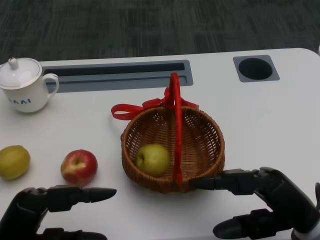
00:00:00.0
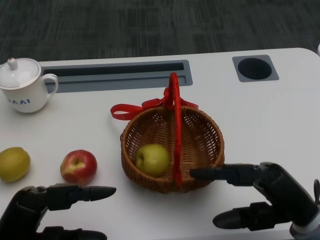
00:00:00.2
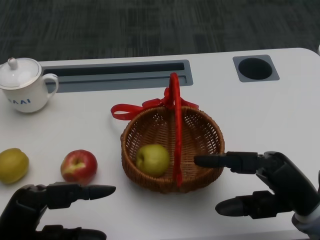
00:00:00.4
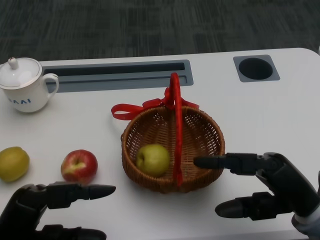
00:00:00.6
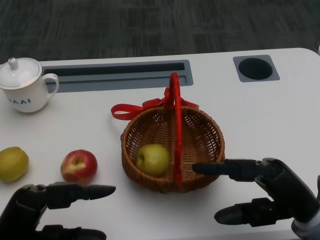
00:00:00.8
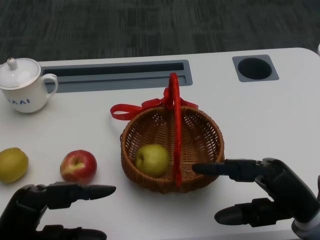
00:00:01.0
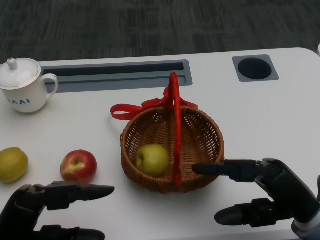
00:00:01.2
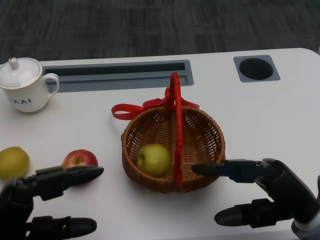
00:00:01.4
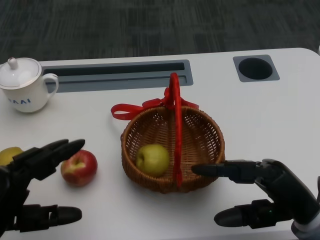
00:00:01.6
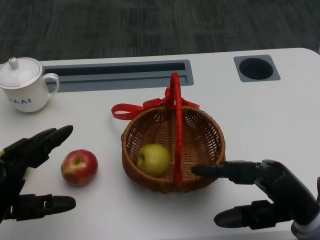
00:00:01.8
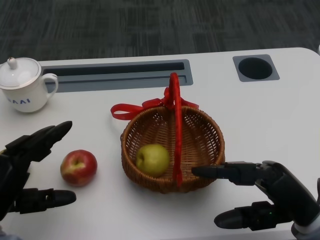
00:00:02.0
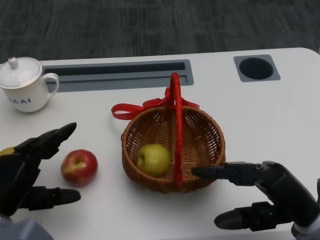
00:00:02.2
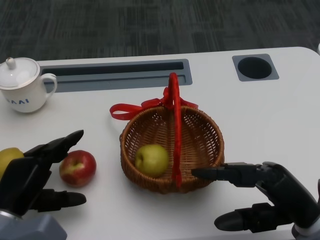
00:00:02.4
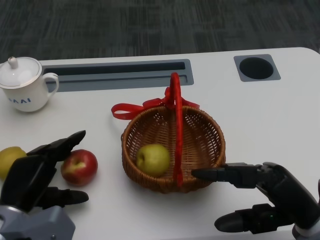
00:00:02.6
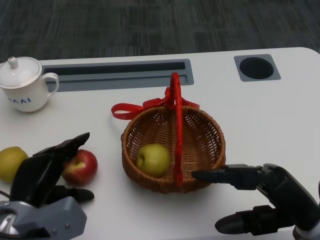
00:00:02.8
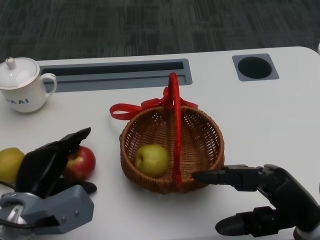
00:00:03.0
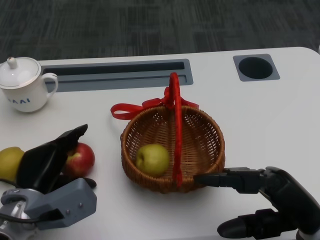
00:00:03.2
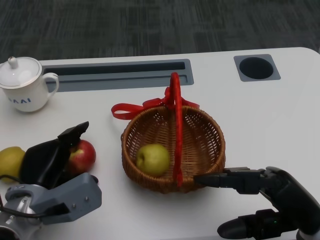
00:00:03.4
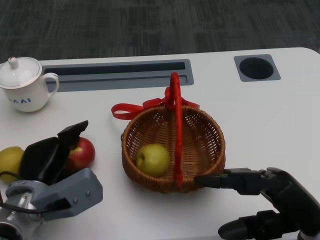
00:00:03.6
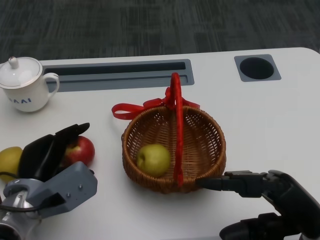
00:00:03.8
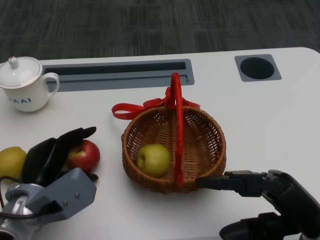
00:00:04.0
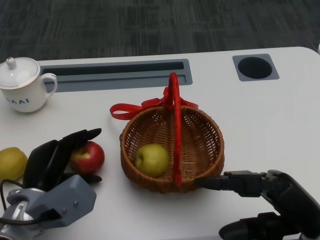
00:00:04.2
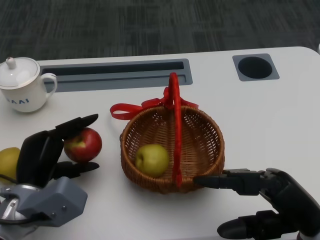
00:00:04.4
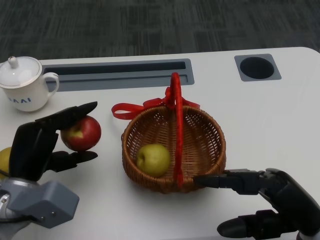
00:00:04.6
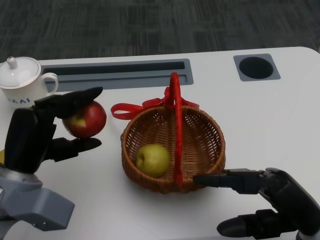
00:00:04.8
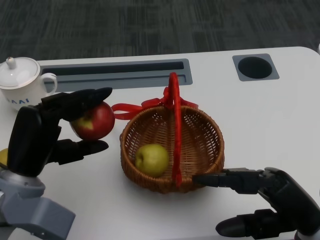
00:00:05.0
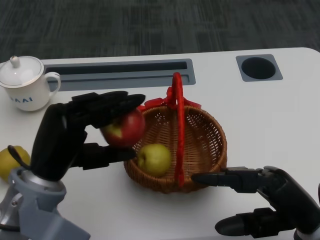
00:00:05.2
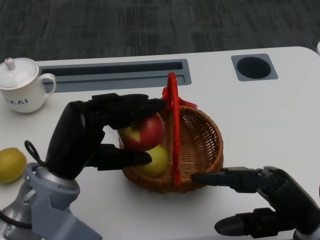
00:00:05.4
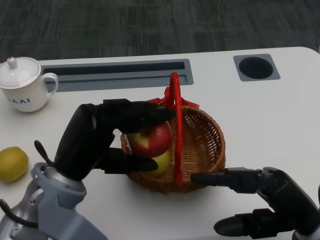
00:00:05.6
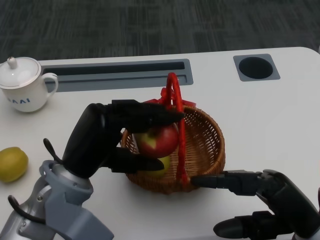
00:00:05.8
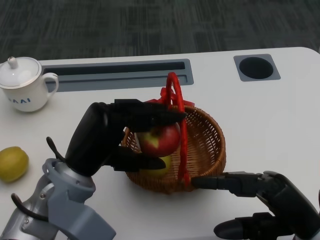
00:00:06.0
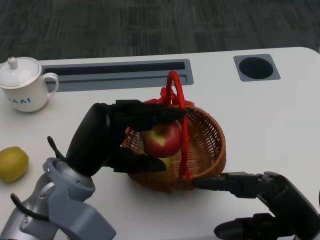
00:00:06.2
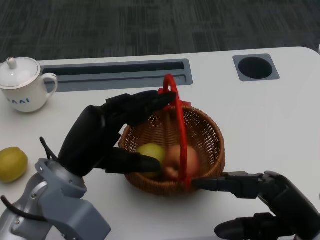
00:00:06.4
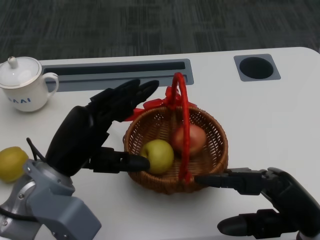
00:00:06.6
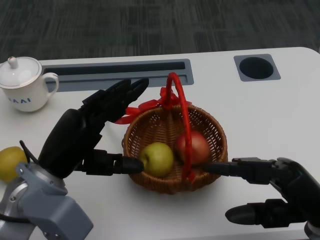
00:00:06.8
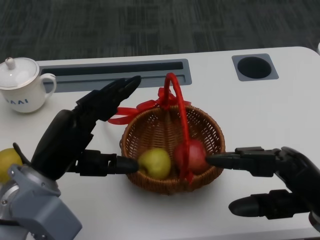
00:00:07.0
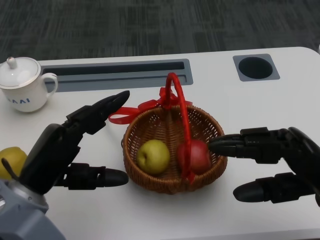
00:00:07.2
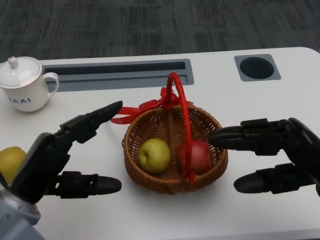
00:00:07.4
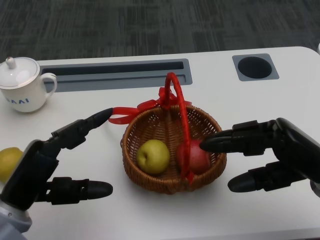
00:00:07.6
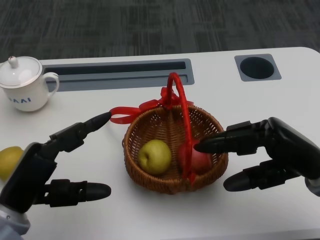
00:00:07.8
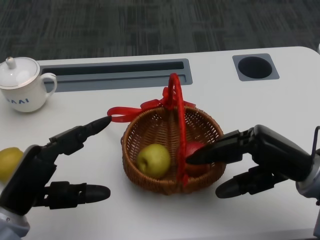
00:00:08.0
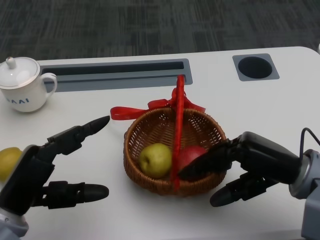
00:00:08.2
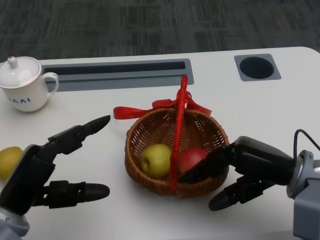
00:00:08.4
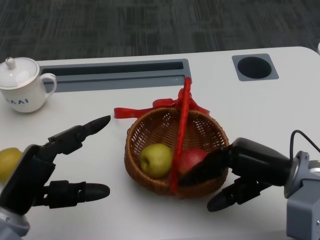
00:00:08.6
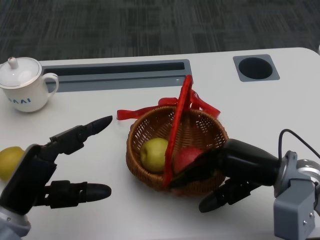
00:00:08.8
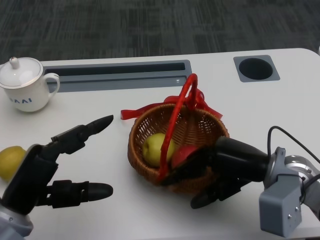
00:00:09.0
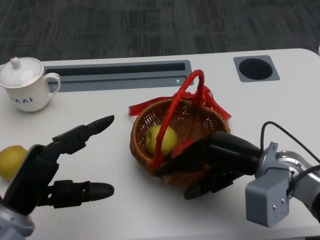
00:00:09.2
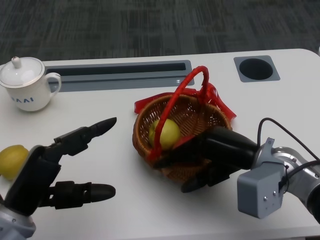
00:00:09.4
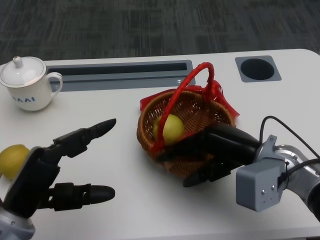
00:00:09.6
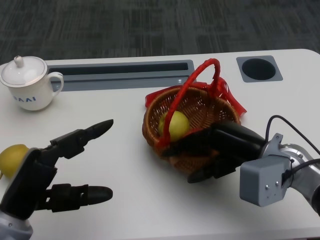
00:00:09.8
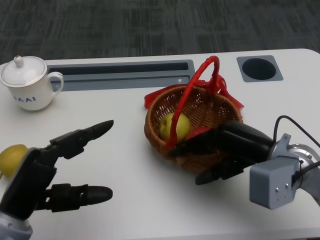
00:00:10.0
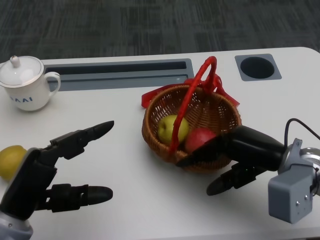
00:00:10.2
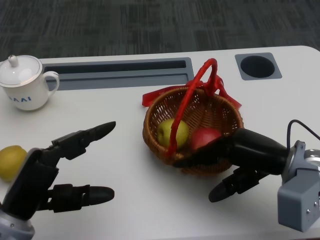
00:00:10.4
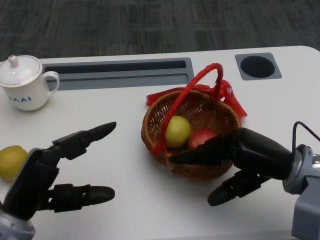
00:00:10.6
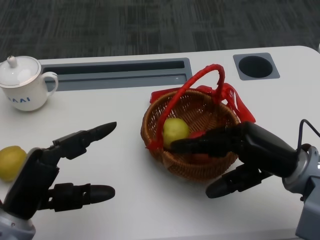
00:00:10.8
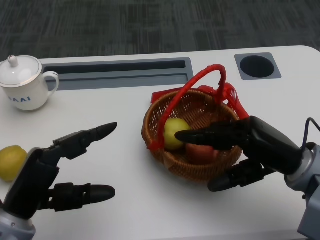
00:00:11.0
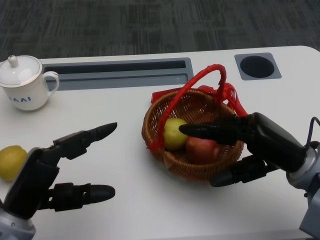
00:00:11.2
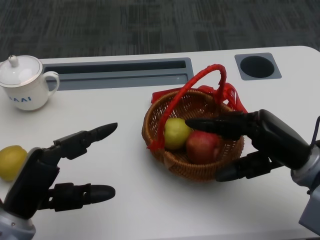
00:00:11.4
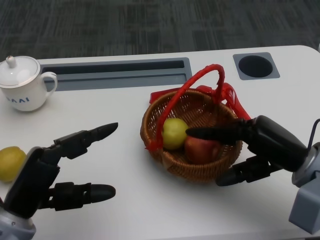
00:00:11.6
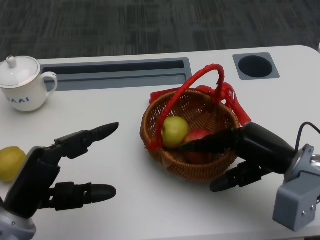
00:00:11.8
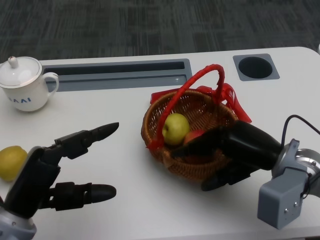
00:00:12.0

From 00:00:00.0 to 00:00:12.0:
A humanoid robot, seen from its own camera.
Step, from 00:00:01.0 to 00:00:02.6: Grasp the apple with the left gripper.
Step, from 00:00:02.8 to 00:00:05.4: Place the apple into the basket with the left gripper.
From 00:00:01.6 to 00:00:03.0: The left hand is displaced forward and downward by roughly 10 cm.
From 00:00:03.0 to 00:00:04.4: The hands stay close to where they were, moving slightly.
From 00:00:04.4 to 00:00:06.0: The left hand travels upward and to the right by about 10 cm.
From 00:00:06.0 to 00:00:07.6: The right hand heads forward, covering some 5 cm. The left hand heads to the left, covering approximately 10 cm.
From 00:00:07.6 to 00:00:09.0: The right hand goes about 5 cm to the left.

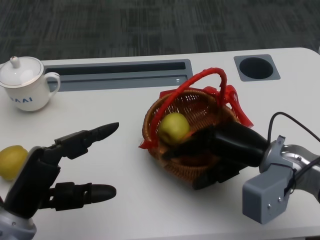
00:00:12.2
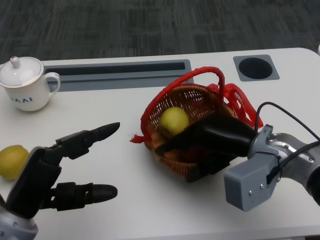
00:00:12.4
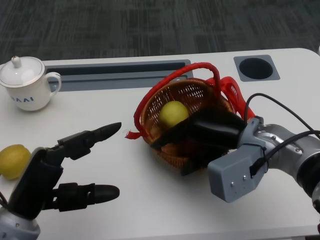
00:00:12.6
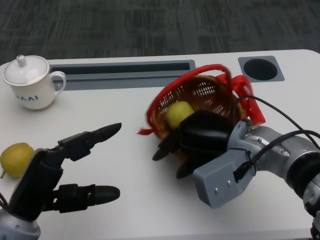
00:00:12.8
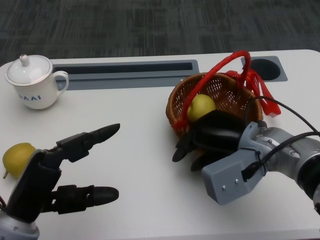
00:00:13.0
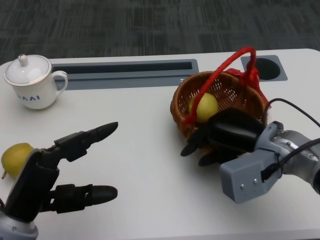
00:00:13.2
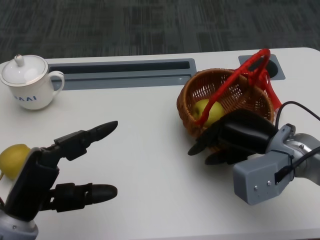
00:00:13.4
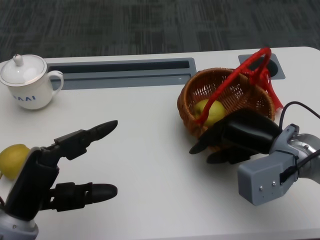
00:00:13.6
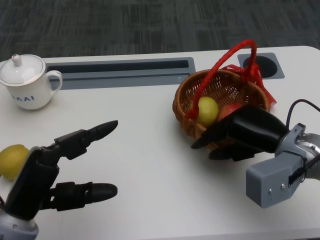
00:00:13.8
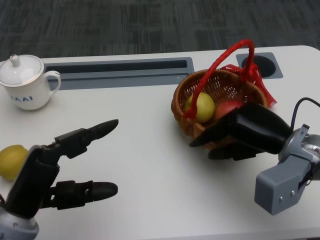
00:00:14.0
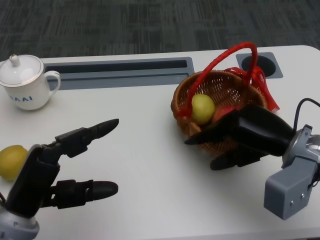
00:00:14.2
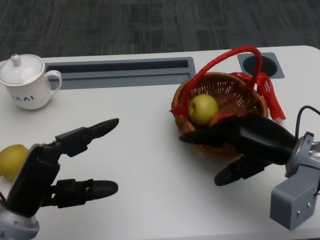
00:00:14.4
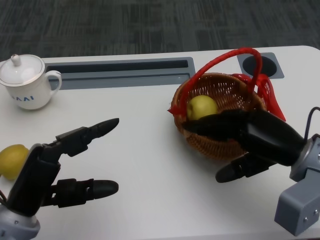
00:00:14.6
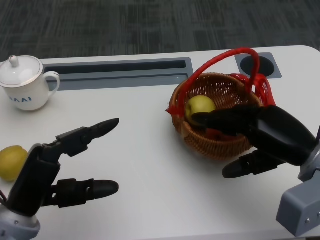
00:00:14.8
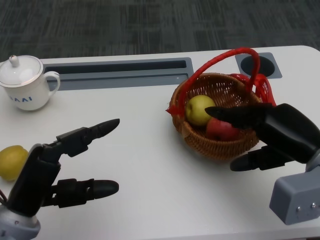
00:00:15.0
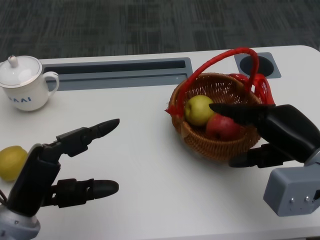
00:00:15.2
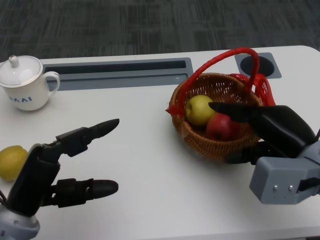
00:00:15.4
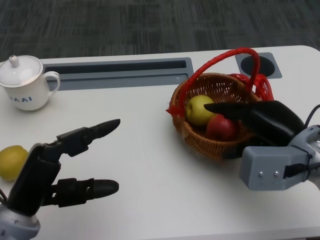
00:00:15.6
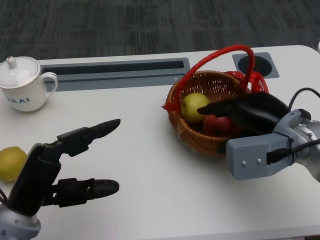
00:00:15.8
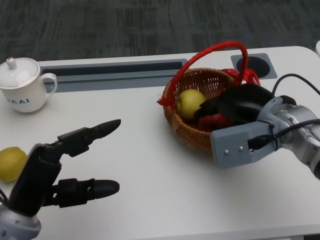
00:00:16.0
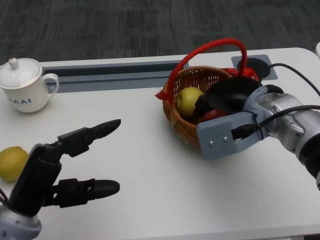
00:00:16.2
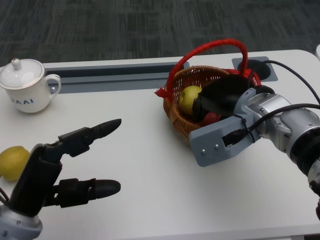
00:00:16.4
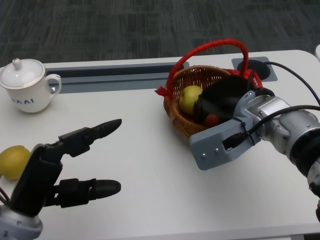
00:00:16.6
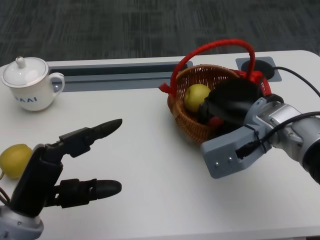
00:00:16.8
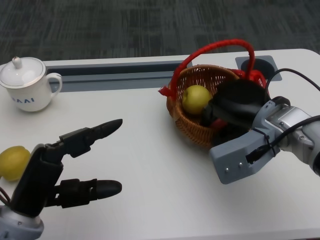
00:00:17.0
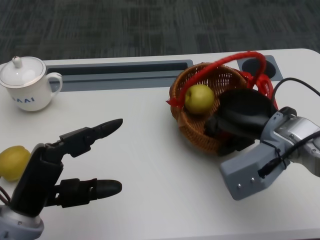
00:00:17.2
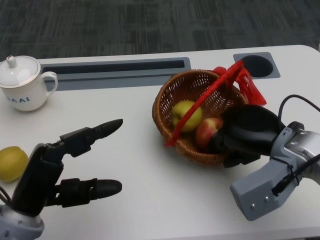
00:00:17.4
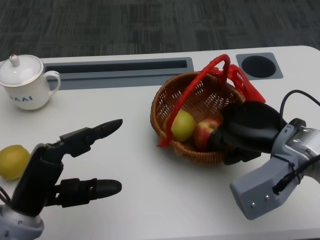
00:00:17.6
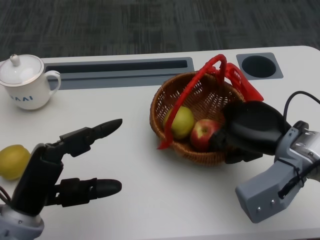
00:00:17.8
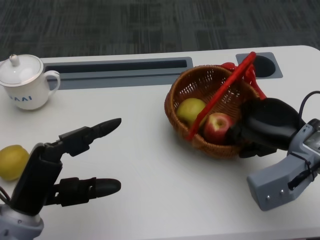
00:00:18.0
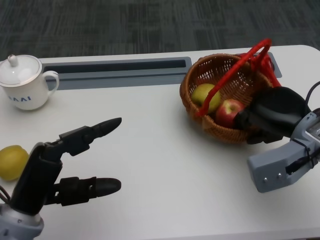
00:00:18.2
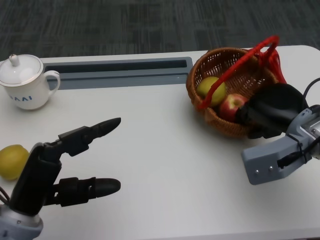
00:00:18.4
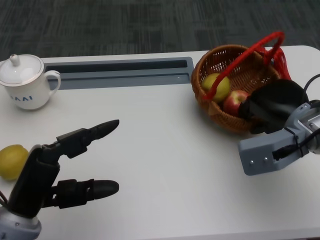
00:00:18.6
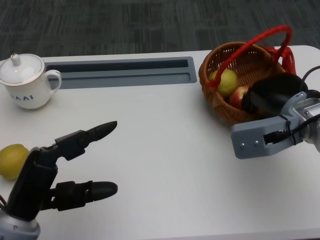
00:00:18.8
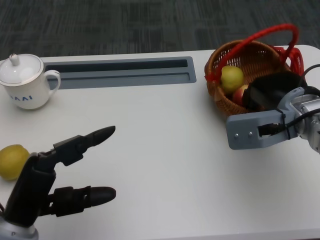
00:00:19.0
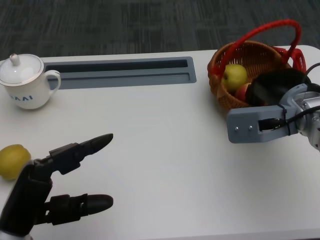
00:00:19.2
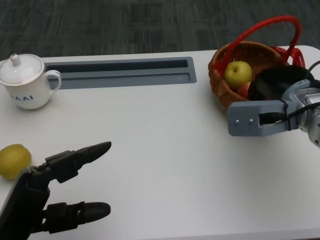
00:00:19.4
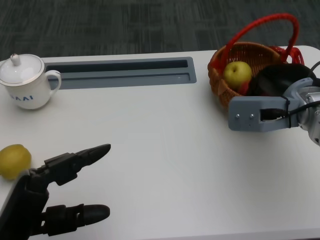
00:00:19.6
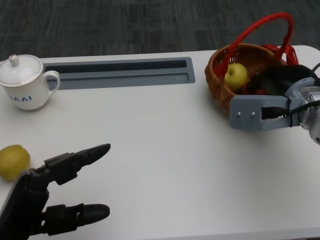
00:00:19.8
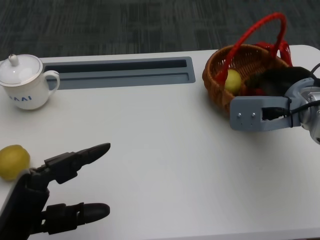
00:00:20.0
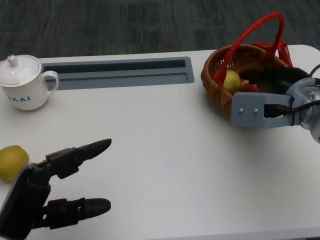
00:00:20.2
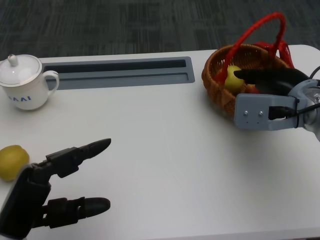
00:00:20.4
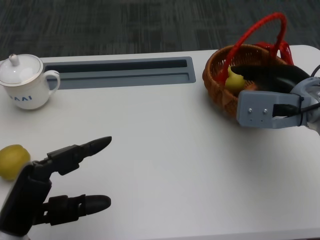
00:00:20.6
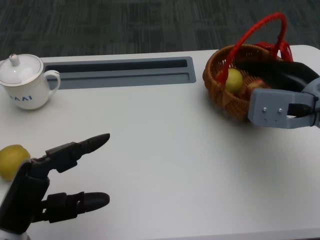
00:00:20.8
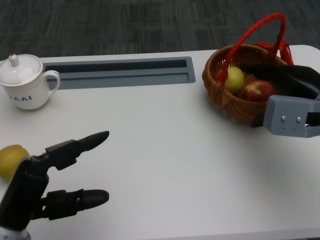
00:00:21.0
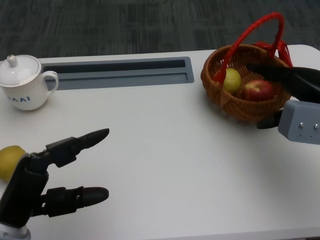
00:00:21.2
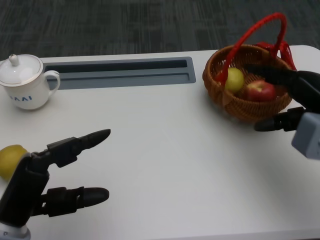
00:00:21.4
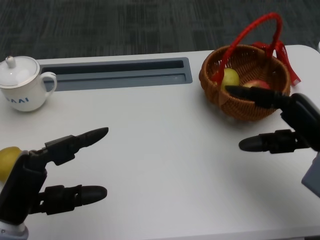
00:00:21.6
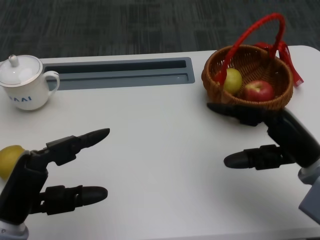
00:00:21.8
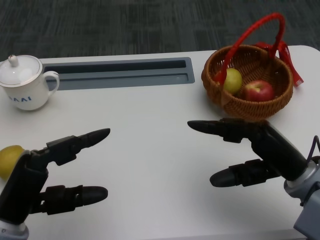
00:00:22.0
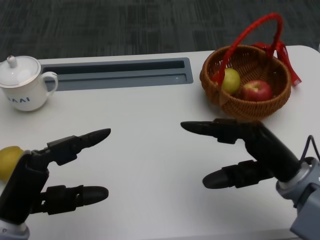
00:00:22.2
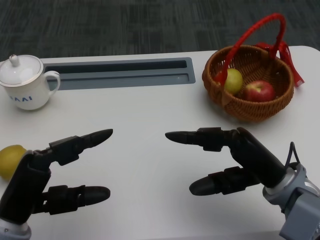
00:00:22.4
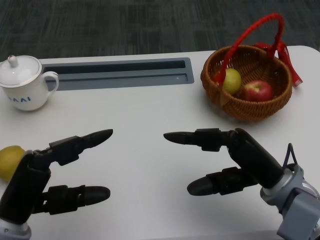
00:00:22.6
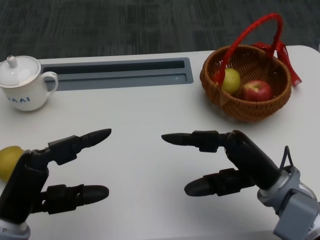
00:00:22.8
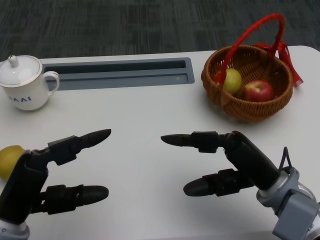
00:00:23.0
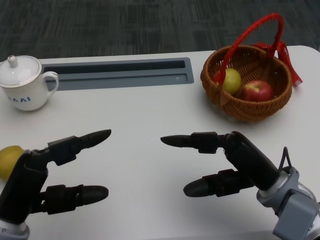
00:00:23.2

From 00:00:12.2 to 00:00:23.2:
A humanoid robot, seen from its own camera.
Step, from 00:00:14.0 to 00:00:16.2: Move the basket to the front of the table with the right gripper.
From 00:00:13.8 to 00:00:15.4: The right hand moves roughly 5 cm.
From 00:00:15.4 to 00:00:17.0: The right hand goes approximately 10 cm forward and to the left.
From 00:00:17.0 to 00:00:18.4: The right hand goes about 5 cm to the right.
From 00:00:20.0 to 00:00:21.6: The right hand is displaced backward by approximately 5 cm.
From 00:00:21.6 to 00:00:23.2: The right hand moves to the left, approximately 10 cm.
